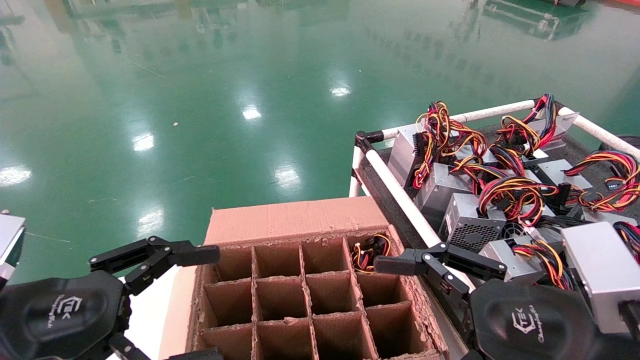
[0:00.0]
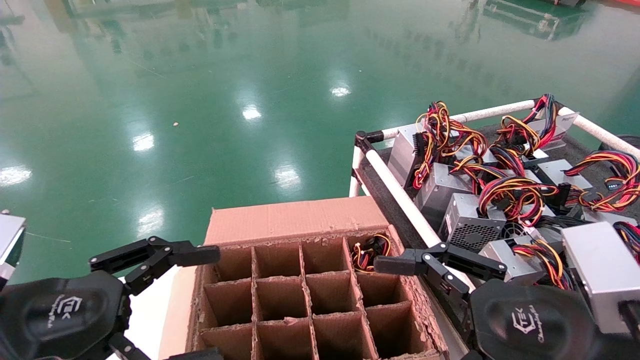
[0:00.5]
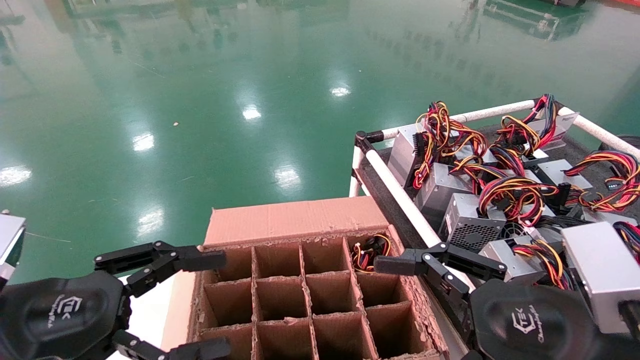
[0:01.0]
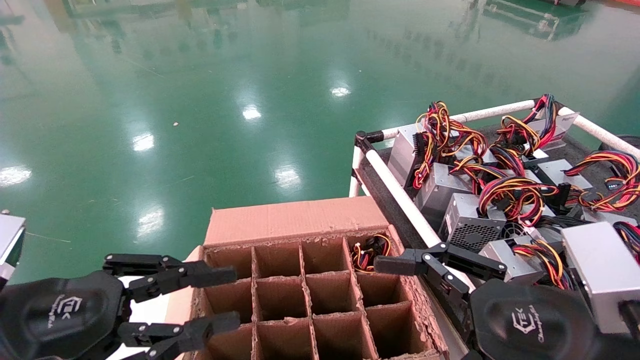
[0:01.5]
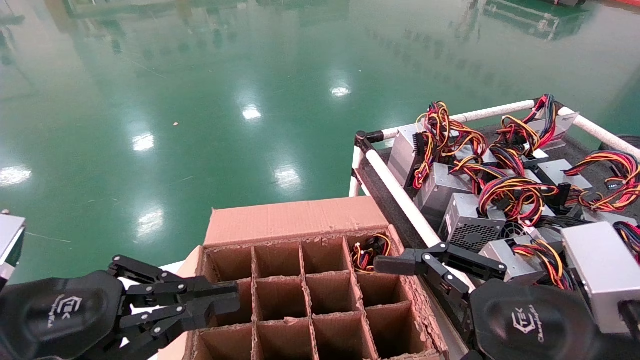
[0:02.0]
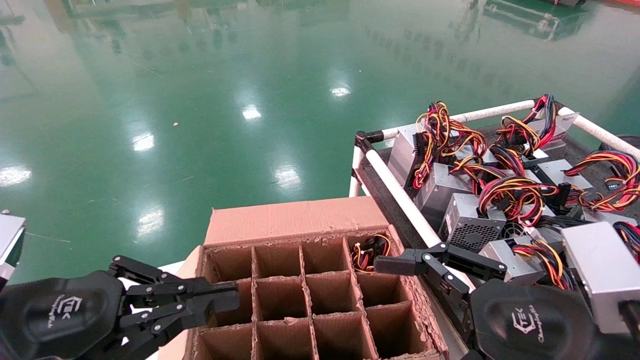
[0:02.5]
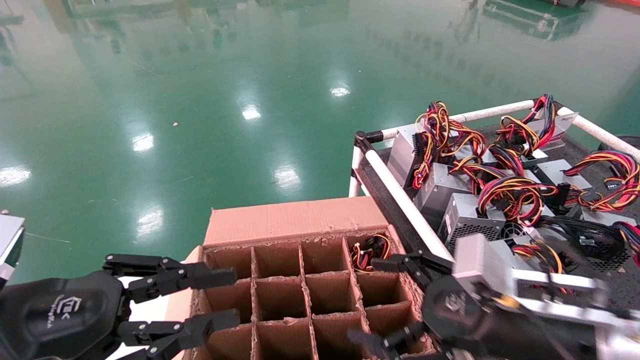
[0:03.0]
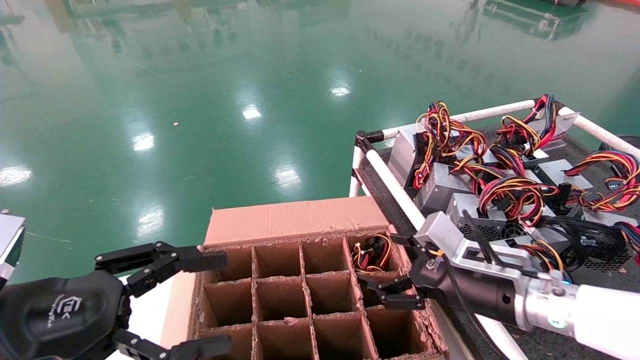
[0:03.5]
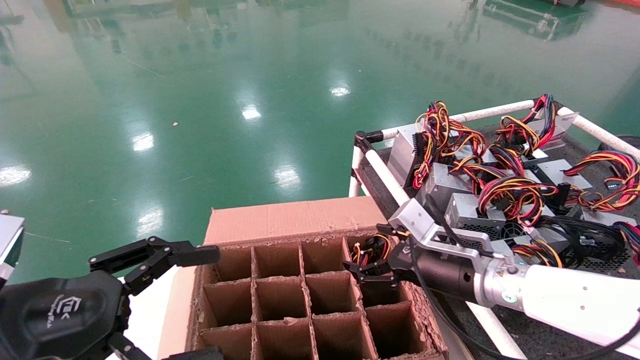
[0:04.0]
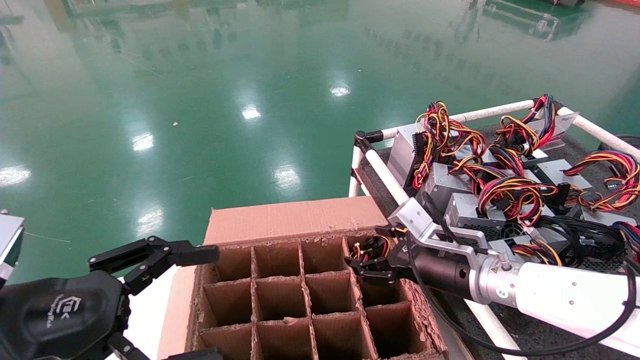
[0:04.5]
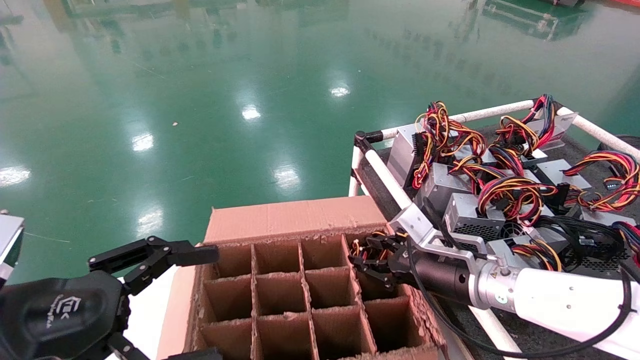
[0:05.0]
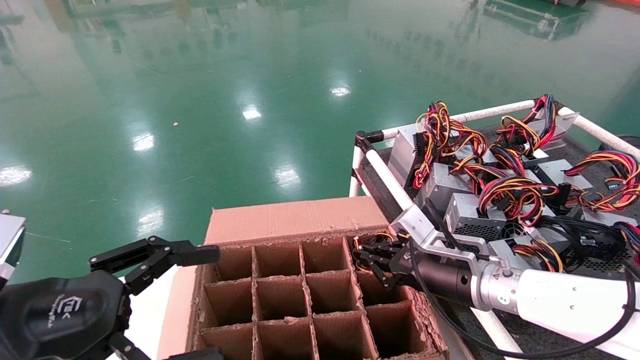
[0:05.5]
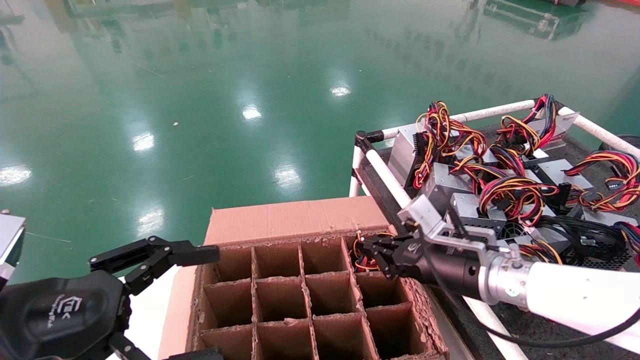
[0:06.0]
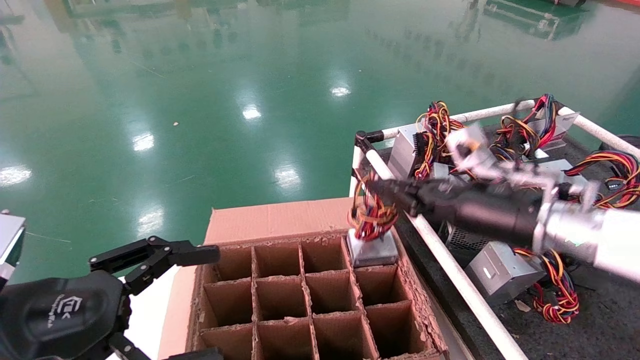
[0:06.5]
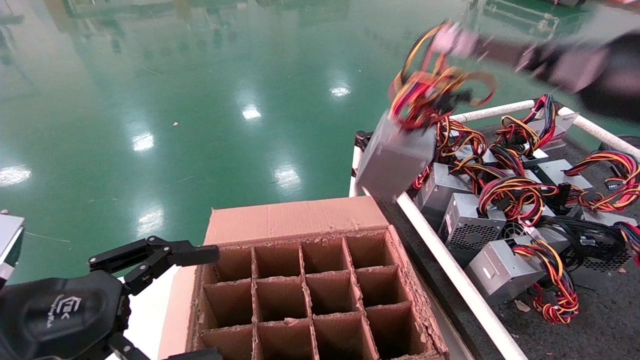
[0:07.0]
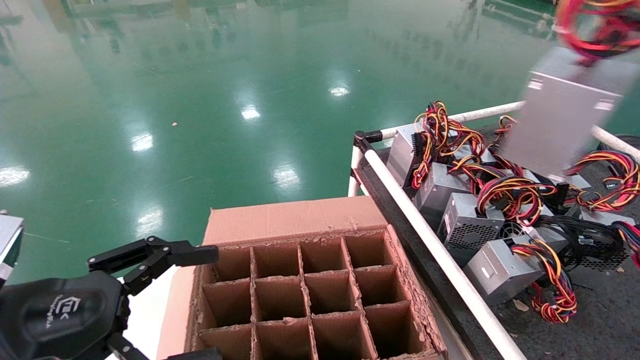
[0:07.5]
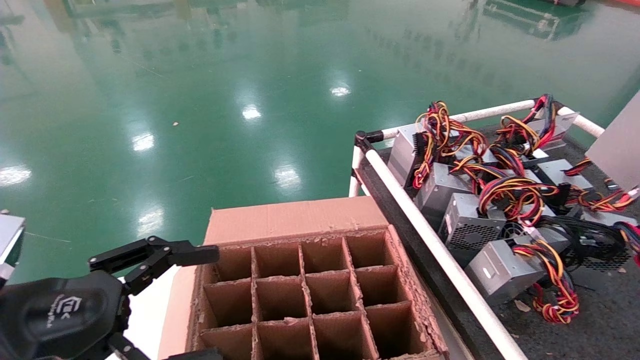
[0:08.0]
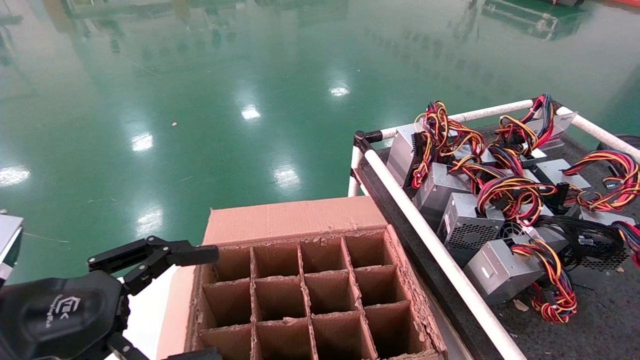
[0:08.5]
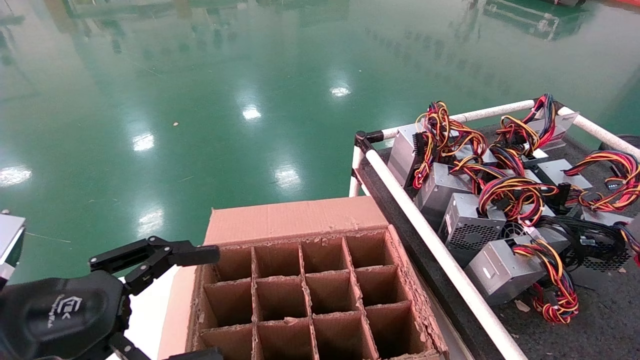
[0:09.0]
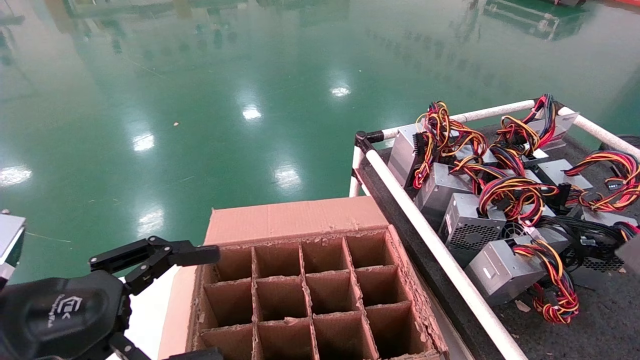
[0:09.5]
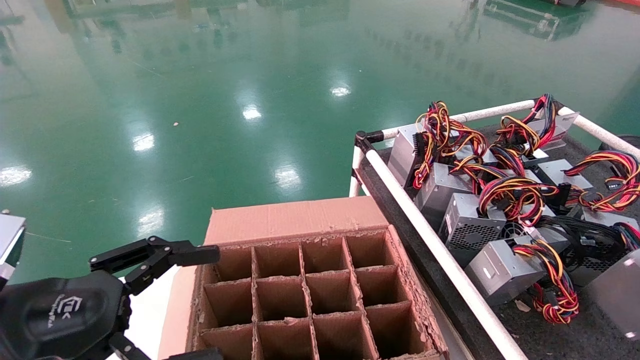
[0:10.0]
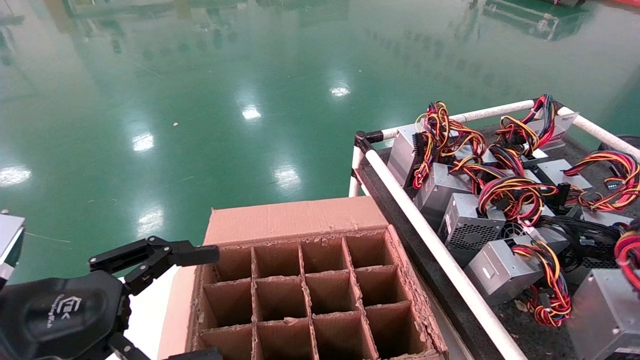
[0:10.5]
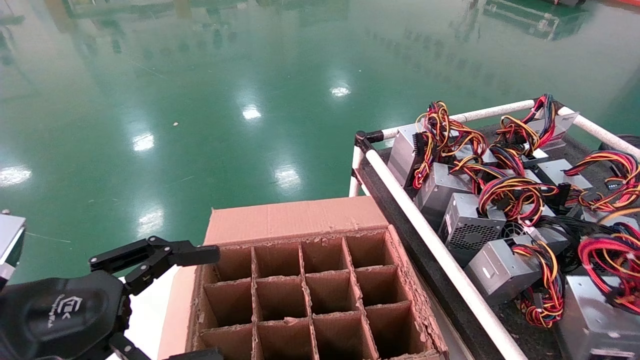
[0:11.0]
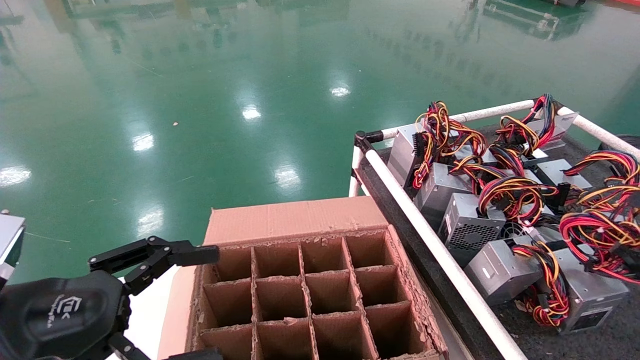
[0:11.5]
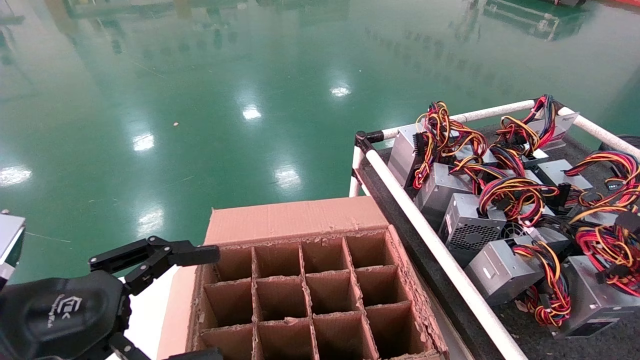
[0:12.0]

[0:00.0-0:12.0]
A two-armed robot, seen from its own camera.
Step, 0:03.5 to 0:05.5: Grab and lift the power supply from the large box.
0:00.0 to 0:02.0: The left gripper closes.
0:02.0 to 0:04.0: The left gripper opens, while the right gripper moves forward, roughly 20 cm.
0:04.0 to 0:06.0: The right gripper closes.
0:06.0 to 0:08.0: The right gripper is displaced to the right, backward and upward by about 50 cm.
0:08.0 to 0:10.0: The right gripper shifts some 20 cm downward.
0:10.0 to 0:12.0: The right gripper heads forward and downward, covering approximately 15 cm.

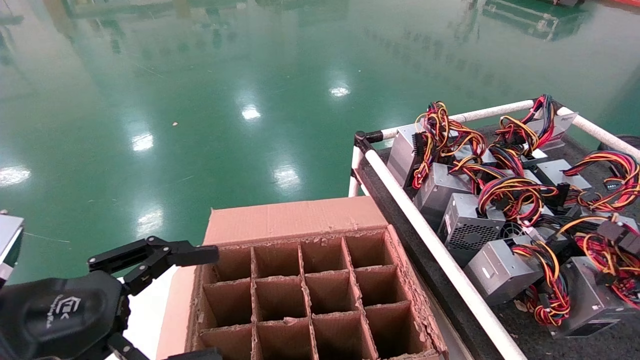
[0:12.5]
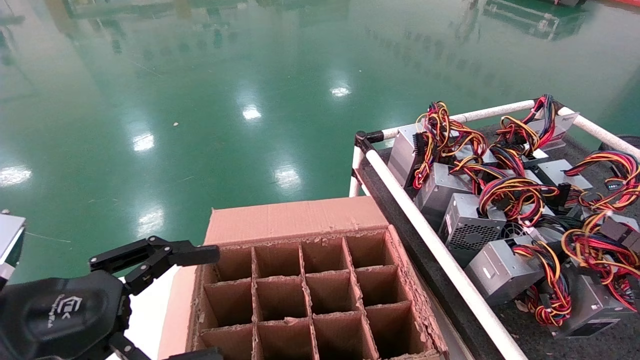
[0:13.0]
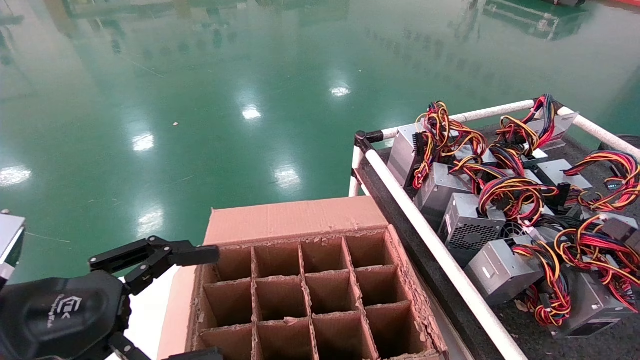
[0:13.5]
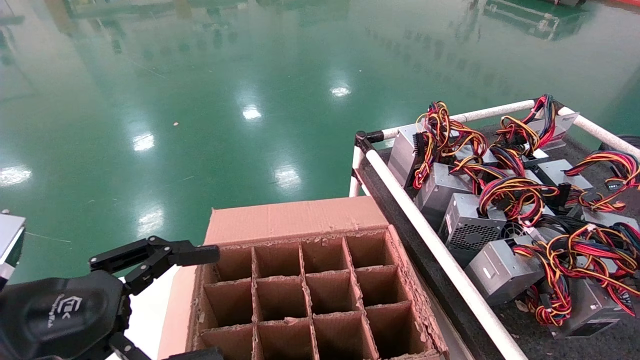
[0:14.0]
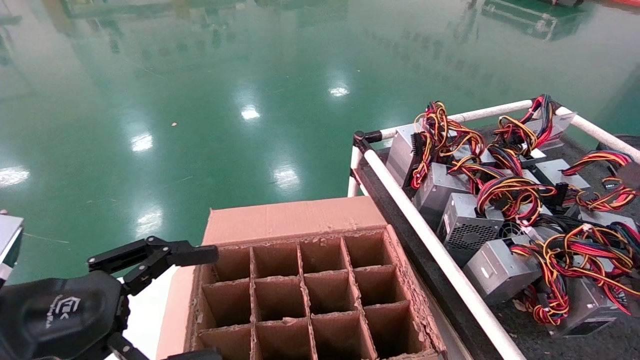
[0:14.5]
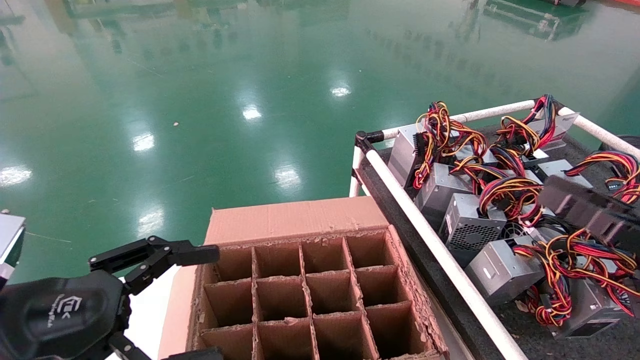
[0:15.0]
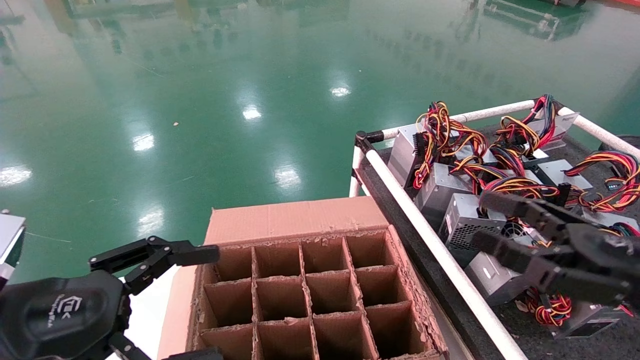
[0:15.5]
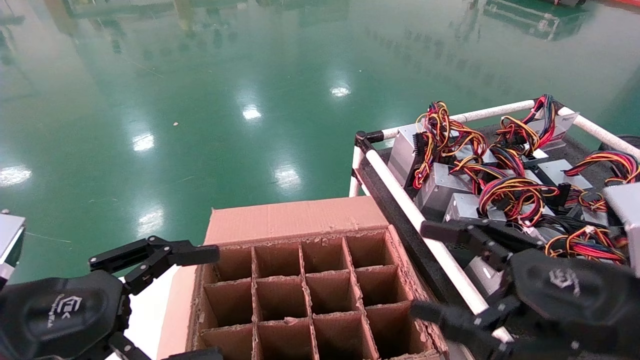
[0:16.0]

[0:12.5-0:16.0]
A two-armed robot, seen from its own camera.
0:12.5 to 0:14.5: The right gripper moves upward, about 5 cm, and opens.
0:14.5 to 0:16.0: The right gripper travels to the left by approximately 20 cm.
